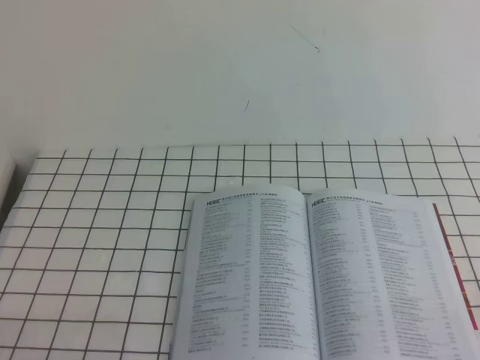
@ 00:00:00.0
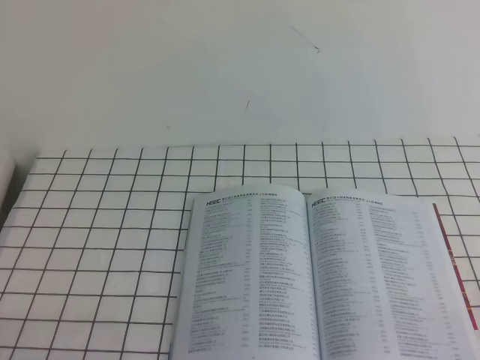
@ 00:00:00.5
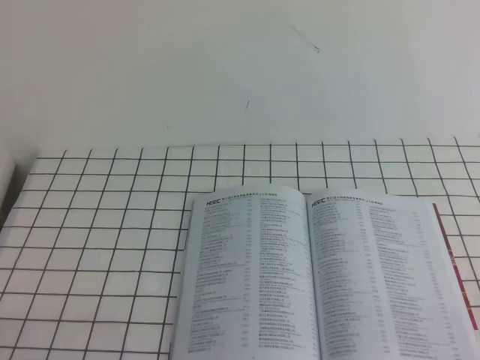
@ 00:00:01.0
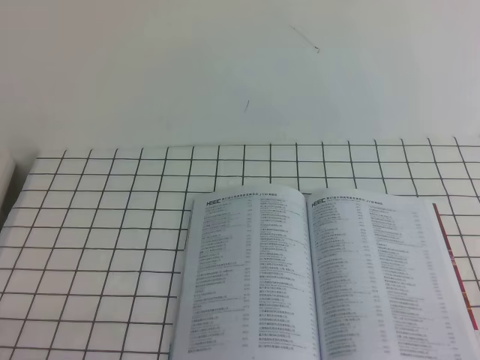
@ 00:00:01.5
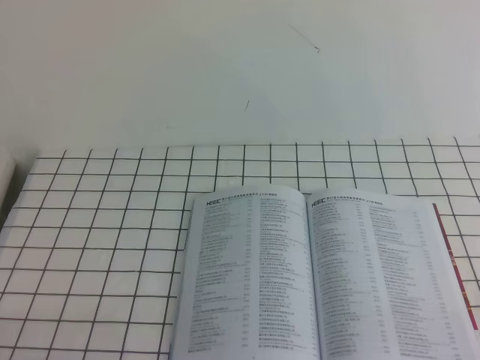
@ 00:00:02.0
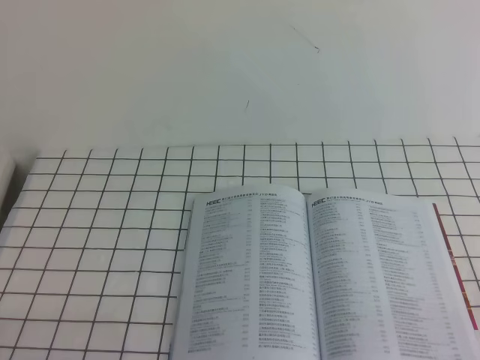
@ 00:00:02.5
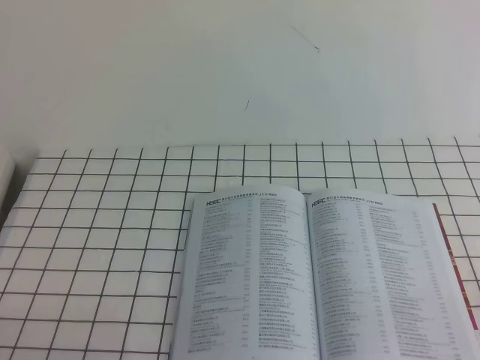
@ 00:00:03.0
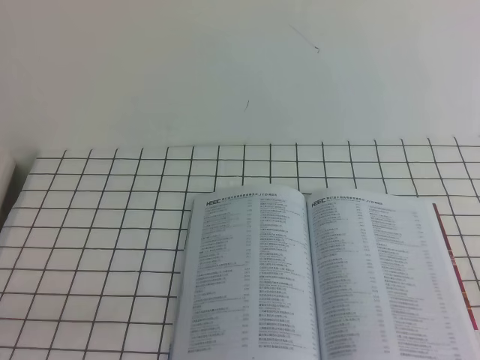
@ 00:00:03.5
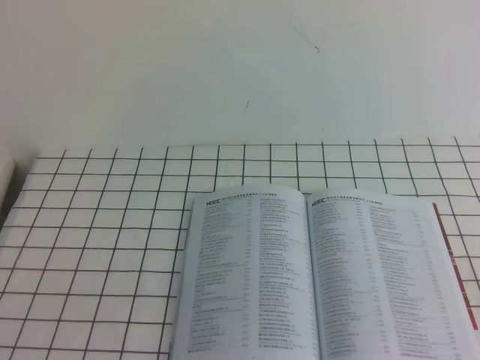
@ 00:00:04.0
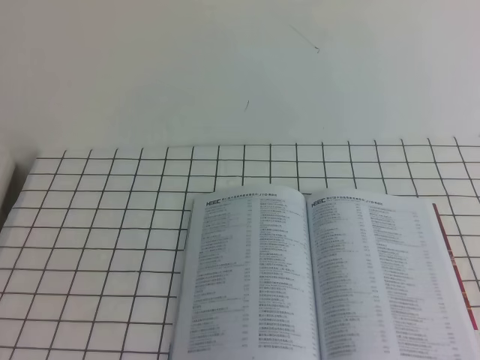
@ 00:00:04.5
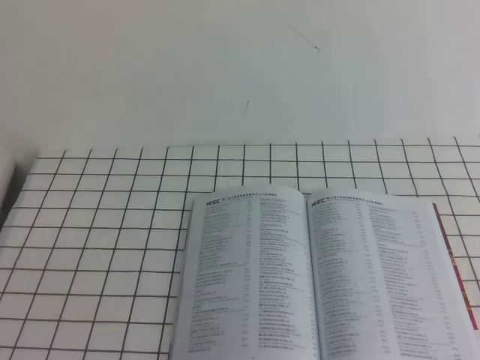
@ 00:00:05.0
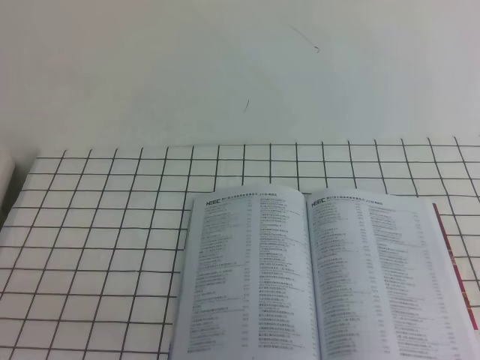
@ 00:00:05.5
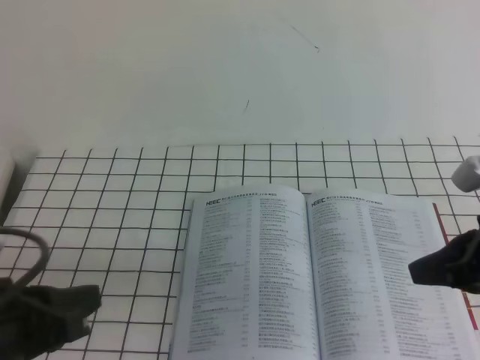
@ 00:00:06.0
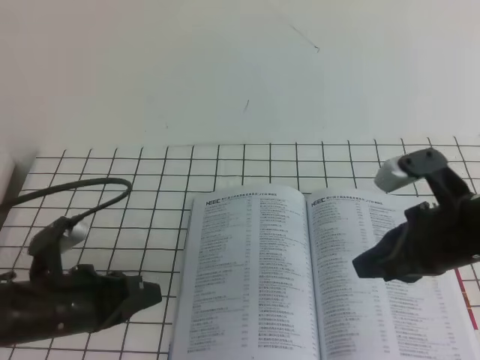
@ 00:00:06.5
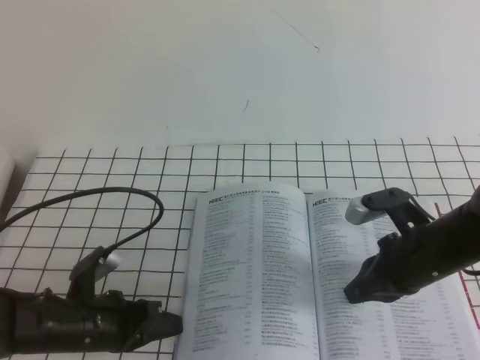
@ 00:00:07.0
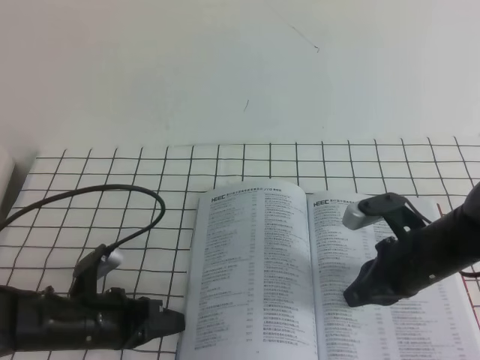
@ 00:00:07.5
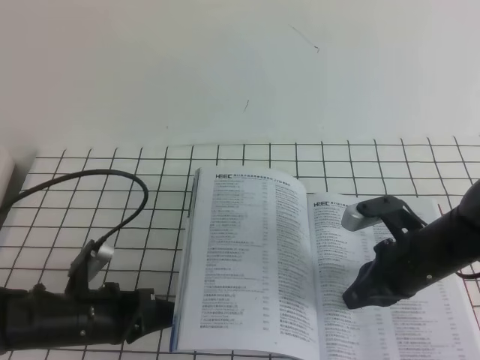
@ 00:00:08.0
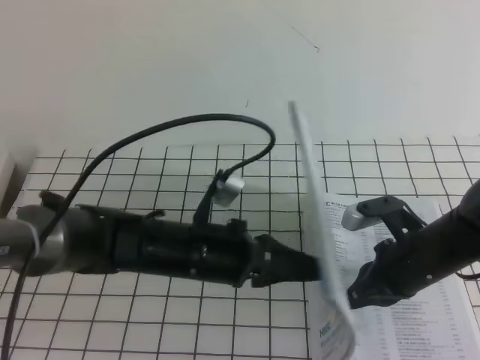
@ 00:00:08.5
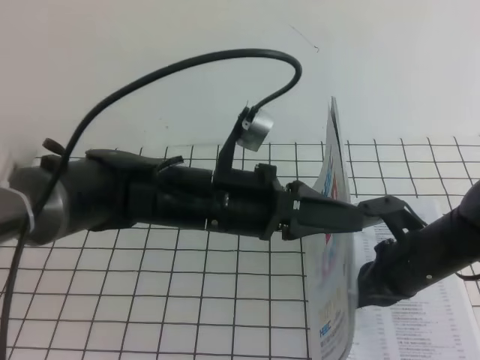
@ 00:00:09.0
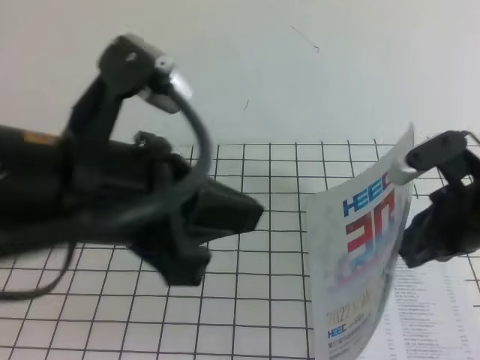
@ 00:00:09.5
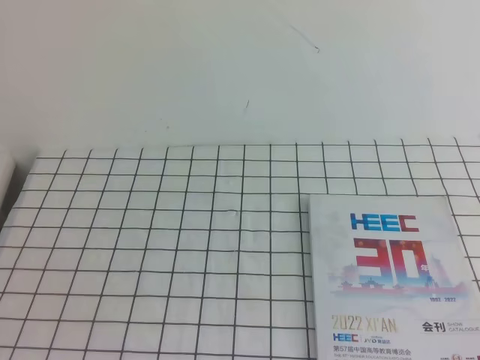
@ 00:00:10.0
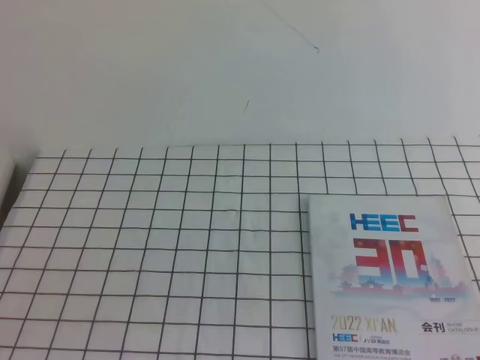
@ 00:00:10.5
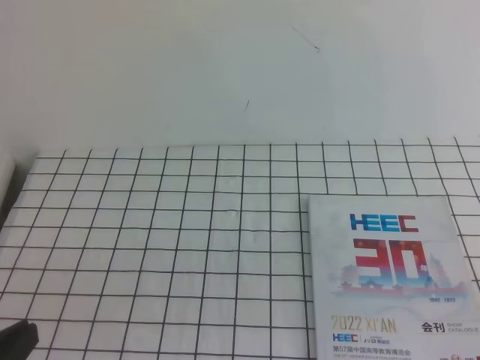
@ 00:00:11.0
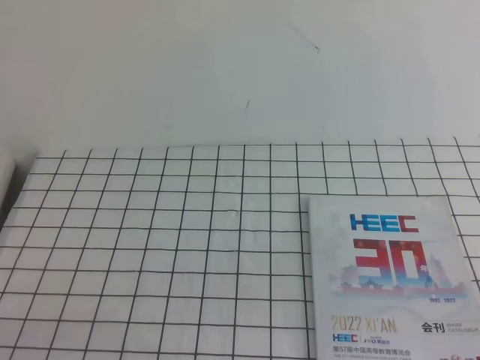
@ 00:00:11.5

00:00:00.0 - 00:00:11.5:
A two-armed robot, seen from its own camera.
Task of the whole recording: on the white tablecloth, hold the book with one hand and close it with the other.
00:00:00.0 - 00:00:02.0: Both grippers stay about where they are.
00:00:04.0 - 00:00:06.0: The left gripper shifts some 15 cm forward and to the right, while the right gripper shifts about 20 cm forward.
00:00:06.0 - 00:00:07.5: The right gripper heads downward, forward and to the left, covering about 15 cm. The left gripper is displaced downward and forward by roughly 20 cm.
00:00:07.5 - 00:00:09.5: The left gripper heads upward, covering roughly 30 cm, while the right gripper is displaced upward by about 10 cm.
00:00:09.5 - 00:00:11.5: The left gripper is displaced downward, to the left and backward by approximately 25 cm; the right gripper is displaced backward by about 20 cm.

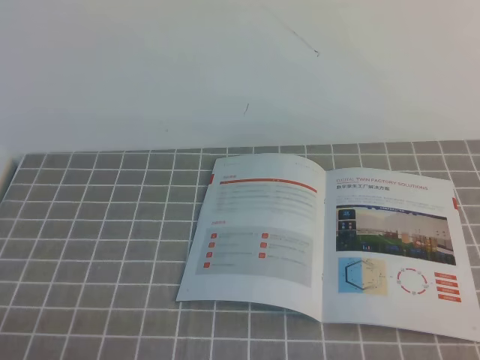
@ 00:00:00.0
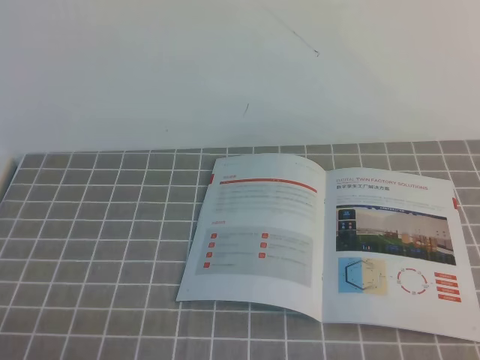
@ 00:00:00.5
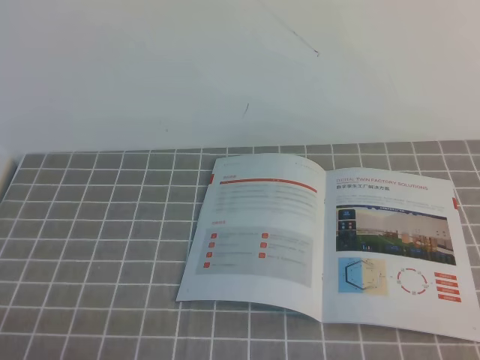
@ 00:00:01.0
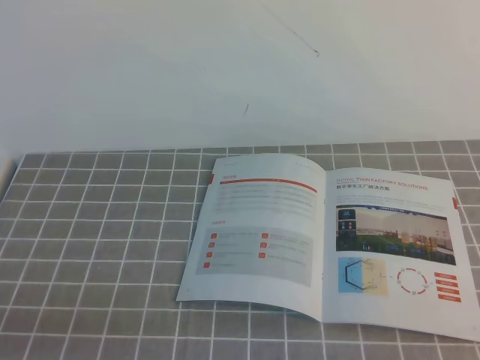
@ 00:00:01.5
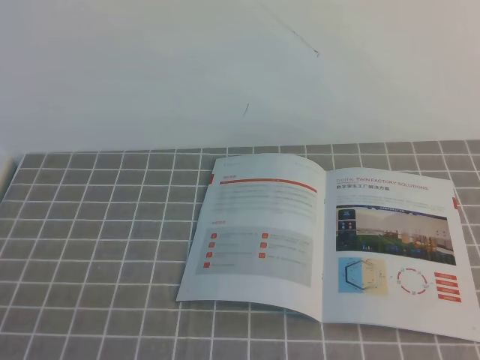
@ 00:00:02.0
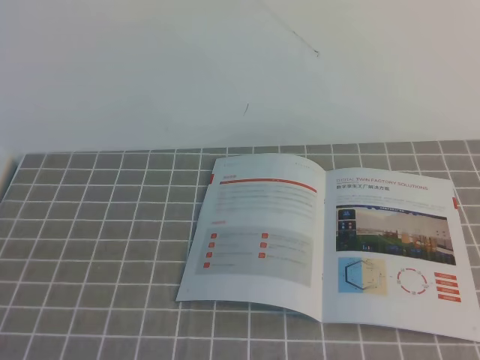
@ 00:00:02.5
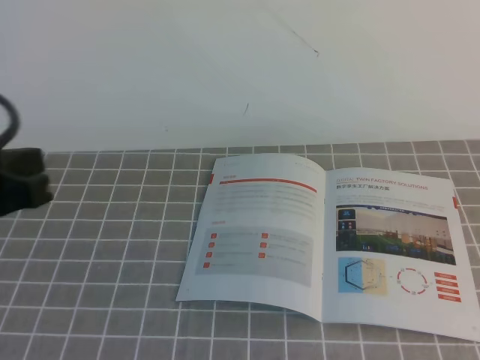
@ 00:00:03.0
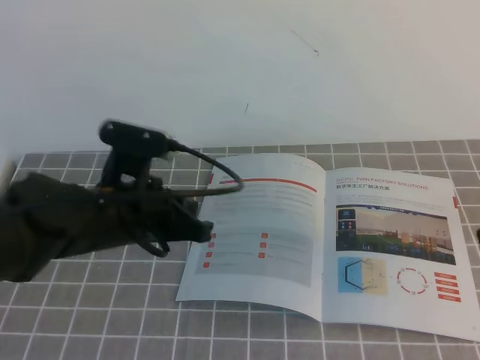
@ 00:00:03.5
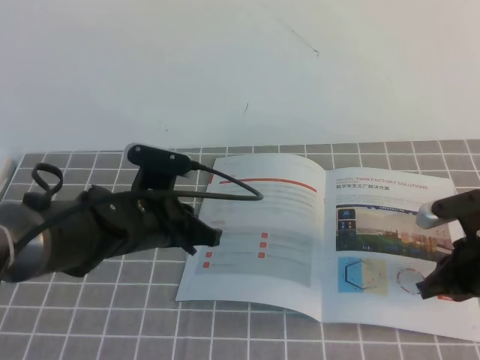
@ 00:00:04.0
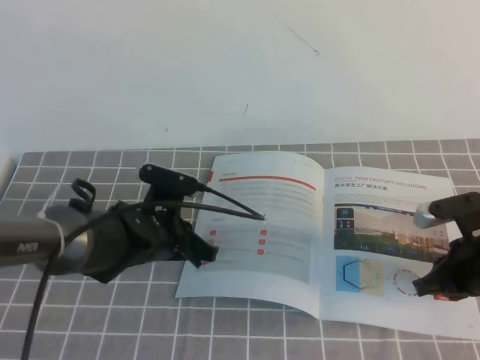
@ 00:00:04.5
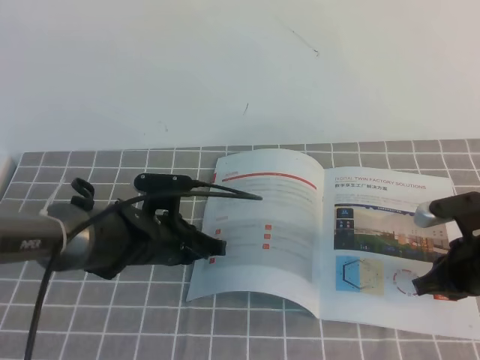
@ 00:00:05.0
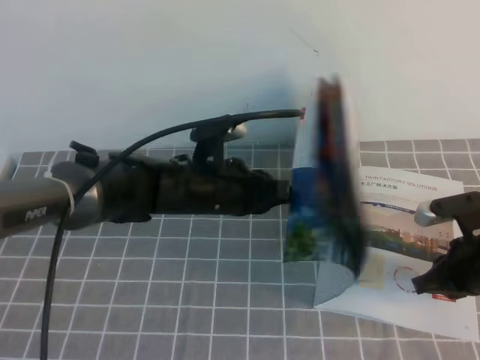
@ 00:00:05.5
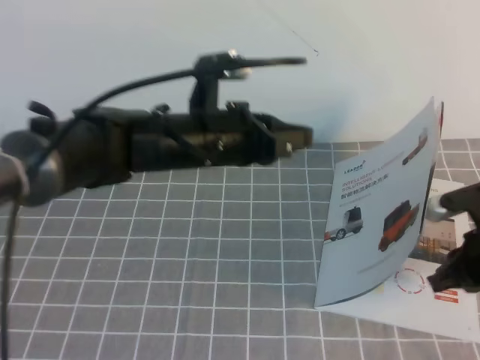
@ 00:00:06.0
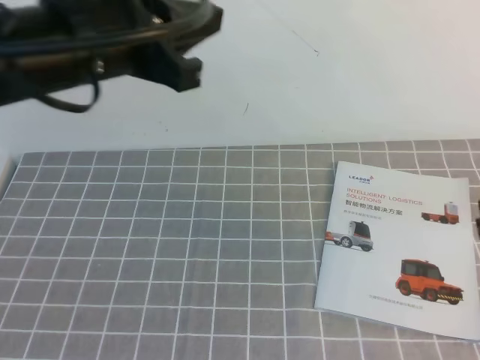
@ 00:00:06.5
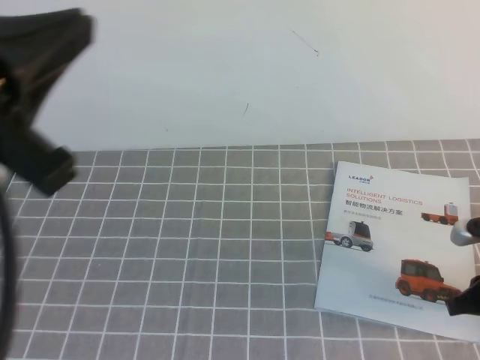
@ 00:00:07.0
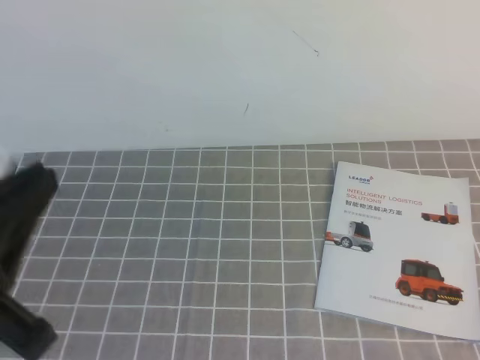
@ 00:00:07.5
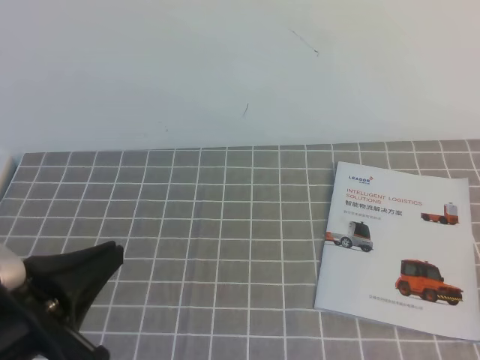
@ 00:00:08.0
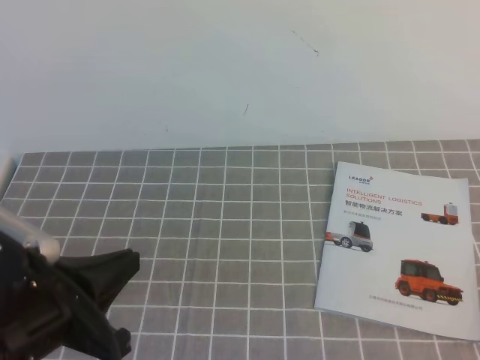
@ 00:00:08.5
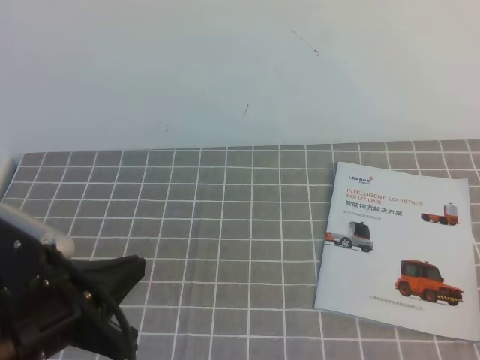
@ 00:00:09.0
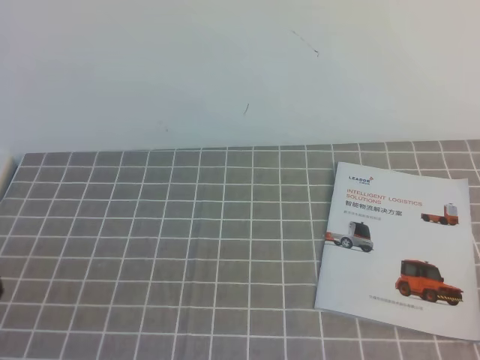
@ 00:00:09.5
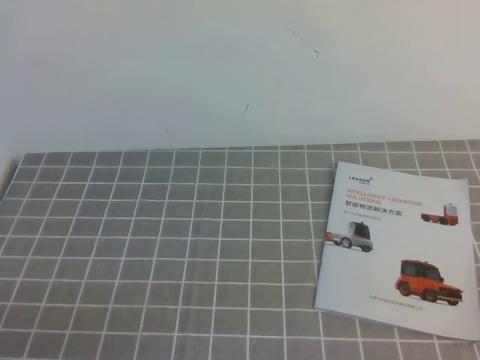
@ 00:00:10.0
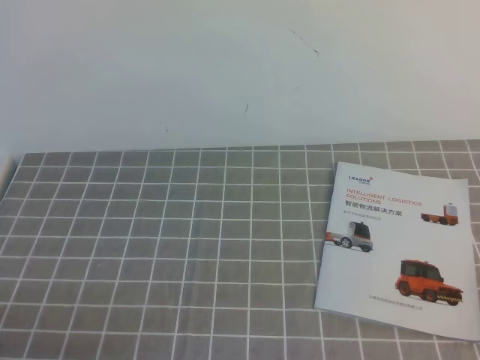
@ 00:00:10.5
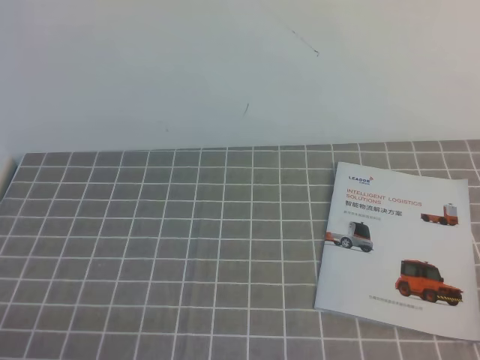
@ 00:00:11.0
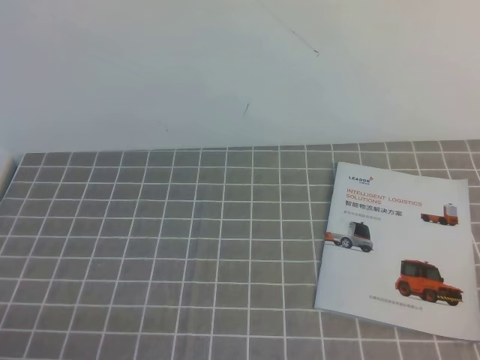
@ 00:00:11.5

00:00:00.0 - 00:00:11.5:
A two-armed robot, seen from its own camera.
Task of the whole recording: on the grey tablecloth, hold the book with one hand and close it with the other.
00:00:02.0 - 00:00:04.0: The right gripper shifts about 25 cm forward and downward. The left gripper travels forward and to the right by about 30 cm.
00:00:04.0 - 00:00:06.0: The left gripper travels upward and to the right by approximately 10 cm.
00:00:06.0 - 00:00:07.5: The right gripper swings up and down, roughly 15 cm each way, with 2 reversals. Meanwhile the left gripper heads backward and to the left, covering roughly 30 cm.
00:00:07.5 - 00:00:09.5: The left gripper moves downward, some 10 cm.
